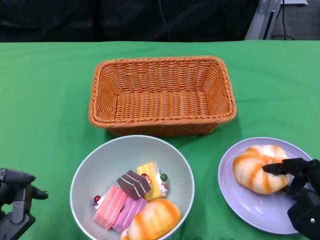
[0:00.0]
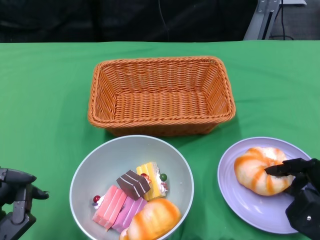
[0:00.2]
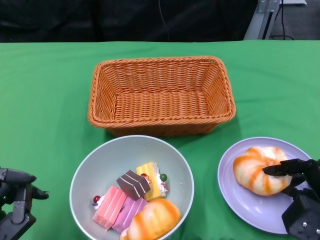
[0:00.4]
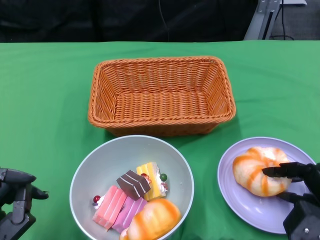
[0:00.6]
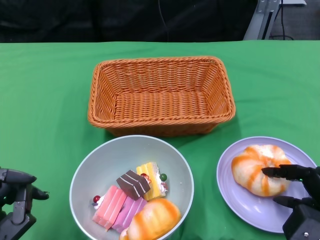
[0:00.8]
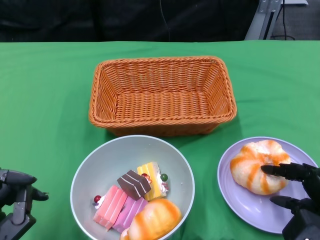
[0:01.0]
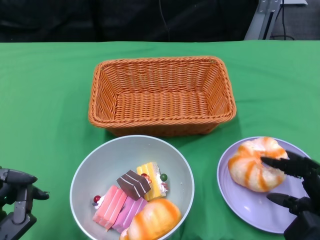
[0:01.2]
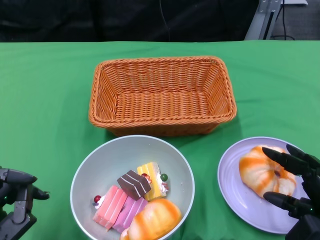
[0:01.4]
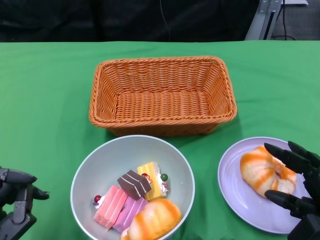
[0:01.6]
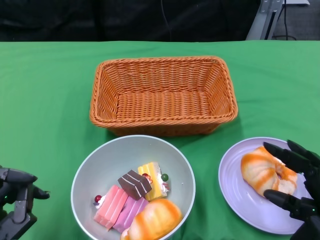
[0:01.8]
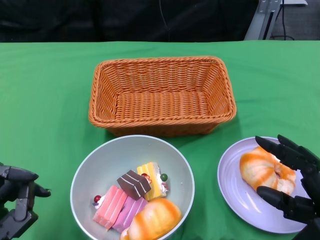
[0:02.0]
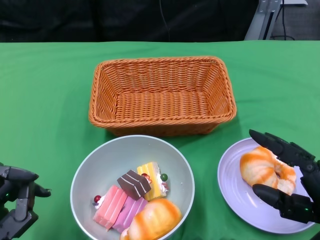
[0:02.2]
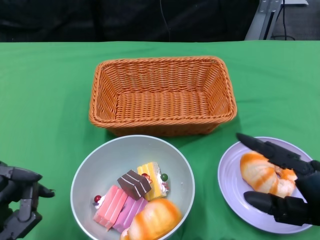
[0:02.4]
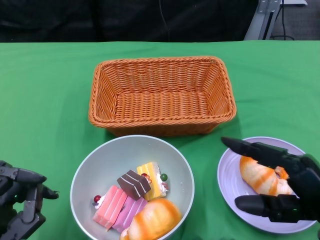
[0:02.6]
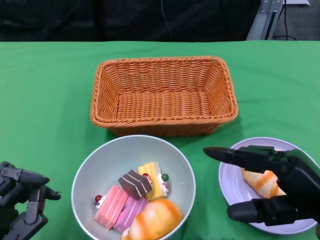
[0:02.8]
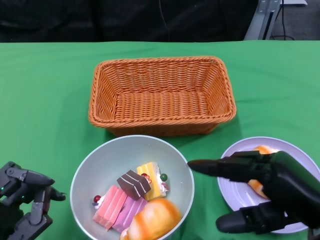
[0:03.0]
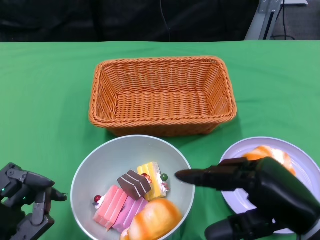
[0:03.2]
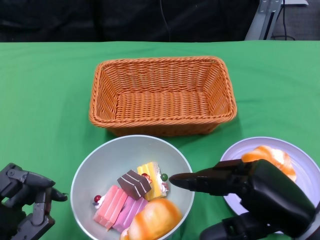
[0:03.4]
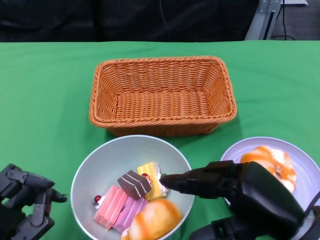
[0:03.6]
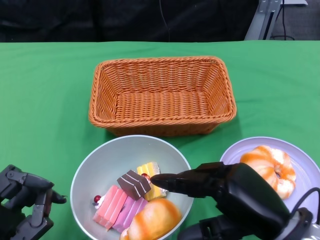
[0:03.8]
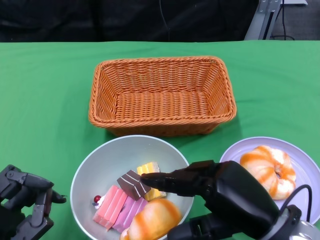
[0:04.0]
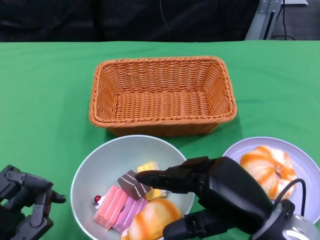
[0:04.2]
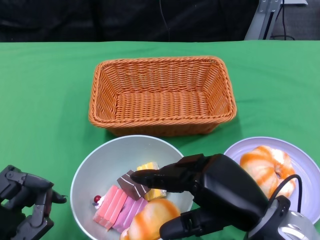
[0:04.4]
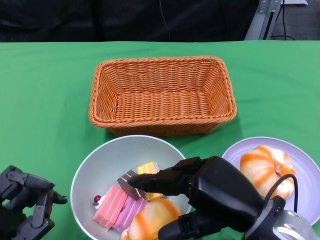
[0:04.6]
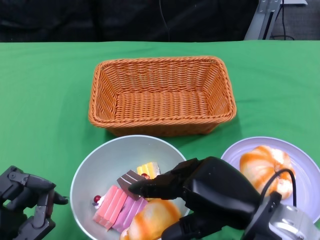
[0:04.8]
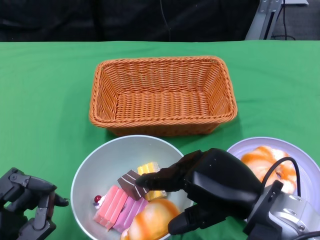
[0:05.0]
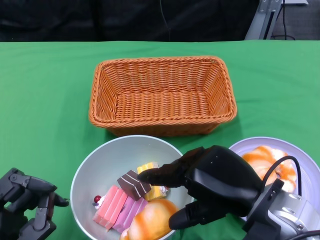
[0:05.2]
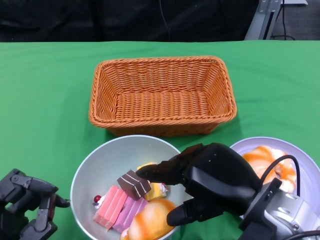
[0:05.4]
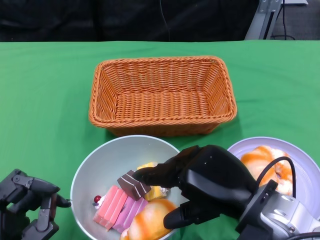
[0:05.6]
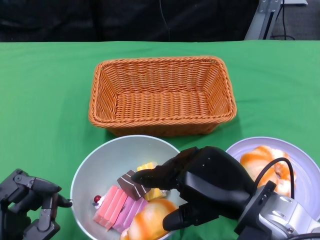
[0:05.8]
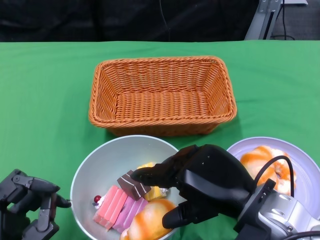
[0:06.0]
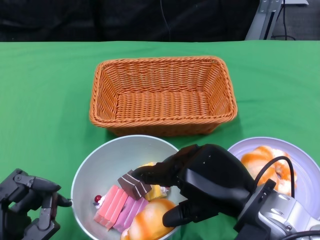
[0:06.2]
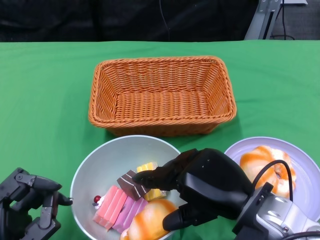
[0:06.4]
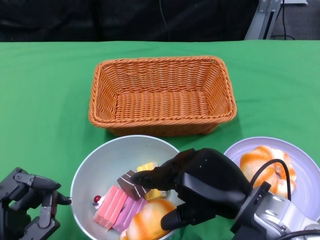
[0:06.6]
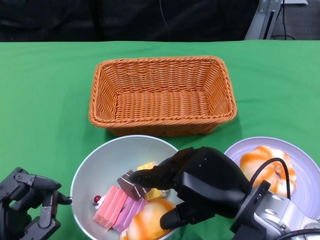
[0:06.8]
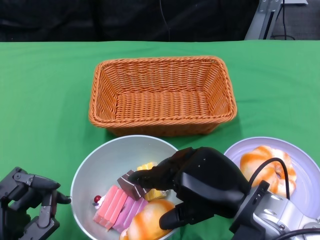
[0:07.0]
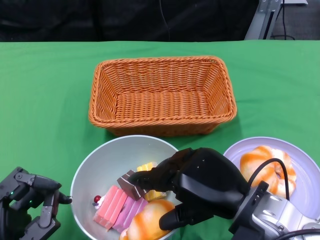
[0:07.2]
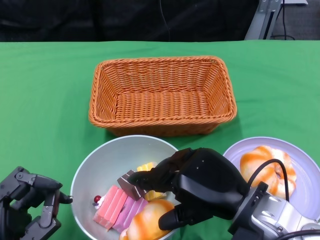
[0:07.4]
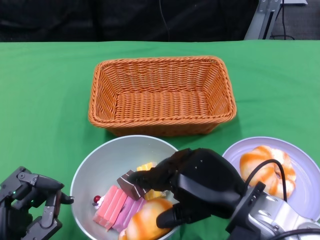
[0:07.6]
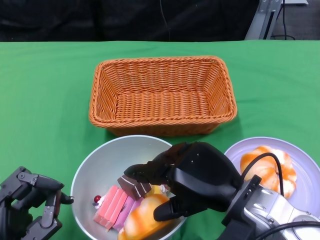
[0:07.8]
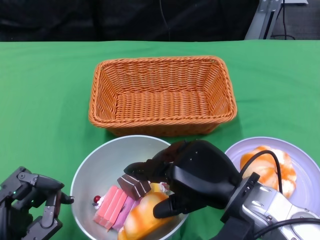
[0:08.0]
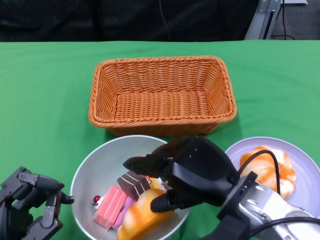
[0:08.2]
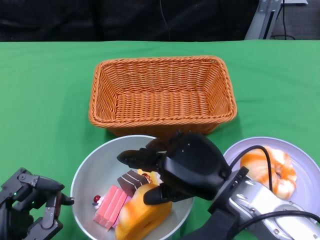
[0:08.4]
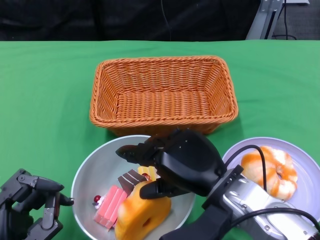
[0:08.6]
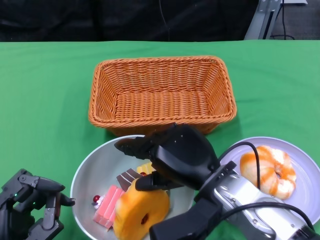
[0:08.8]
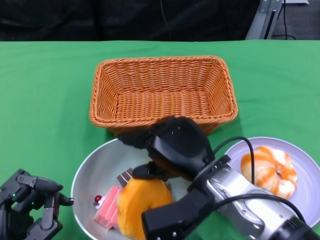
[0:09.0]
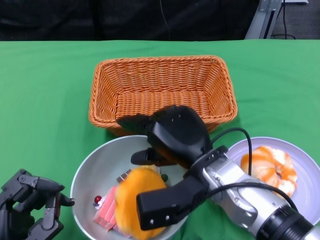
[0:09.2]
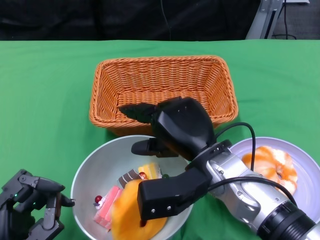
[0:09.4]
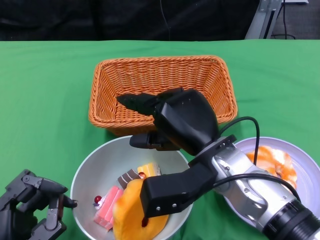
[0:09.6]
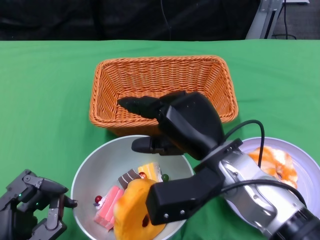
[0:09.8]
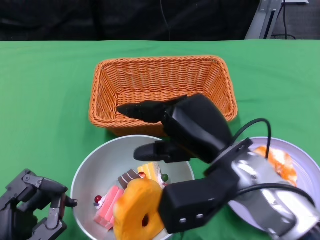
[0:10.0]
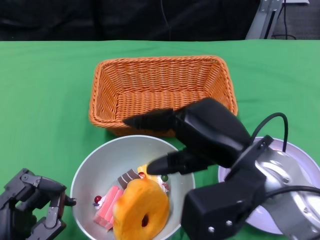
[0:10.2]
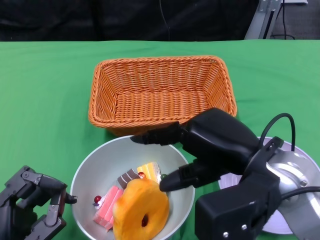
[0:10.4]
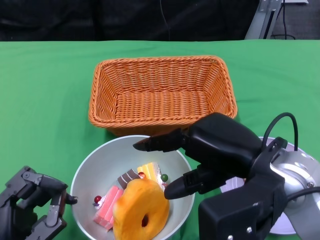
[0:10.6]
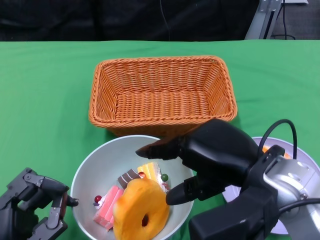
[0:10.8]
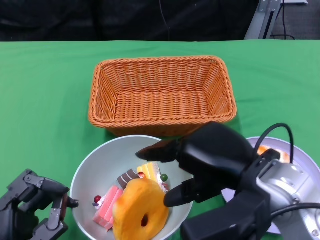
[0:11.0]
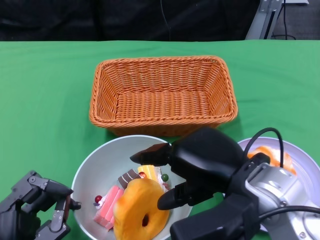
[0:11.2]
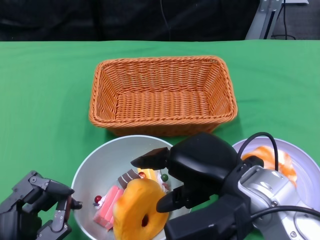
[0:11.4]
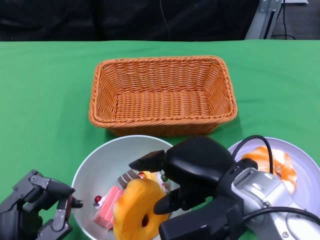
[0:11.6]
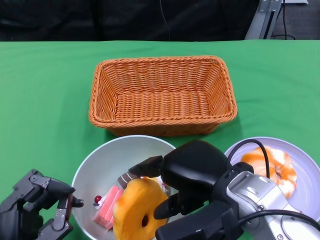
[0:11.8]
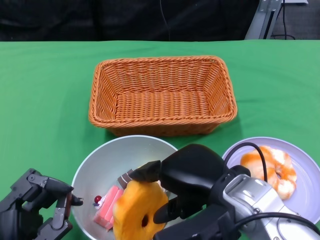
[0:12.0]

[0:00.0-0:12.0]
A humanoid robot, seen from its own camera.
0:00.0 to 0:01.6: There are only small adjustments of the hands.
0:01.6 to 0:03.0: The right hand moves upward, about 5 cm.
0:03.0 to 0:04.4: The right hand travels to the left by about 5 cm.
0:04.4 to 0:07.6: The hands stay close to where they were, moving slightly.
0:07.6 to 0:09.0: The right hand moves to the left, approximately 5 cm.
0:09.0 to 0:10.4: The right hand moves upward and to the right, about 10 cm.
0:10.4 to 0:12.0: The right hand changes place by some 5 cm.

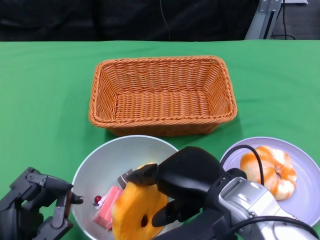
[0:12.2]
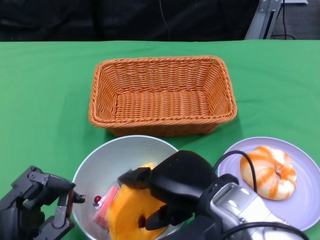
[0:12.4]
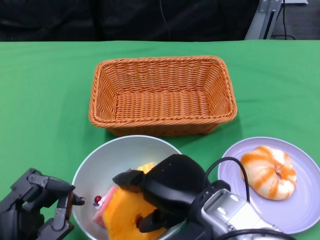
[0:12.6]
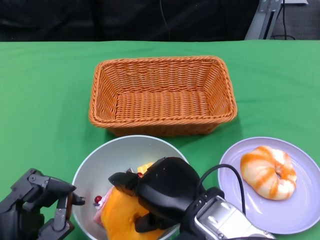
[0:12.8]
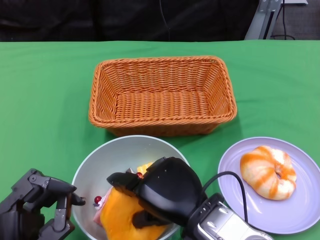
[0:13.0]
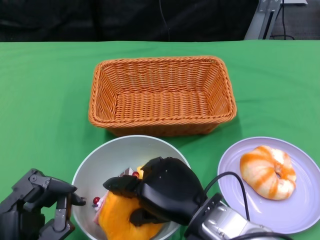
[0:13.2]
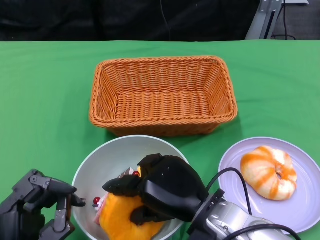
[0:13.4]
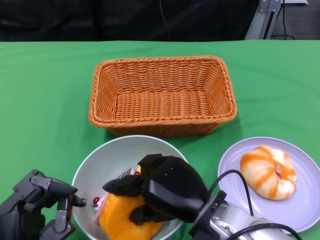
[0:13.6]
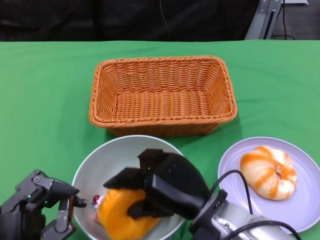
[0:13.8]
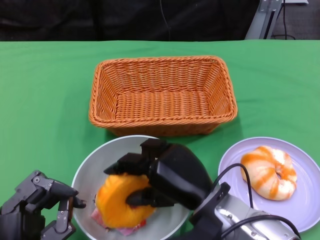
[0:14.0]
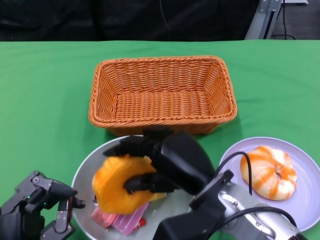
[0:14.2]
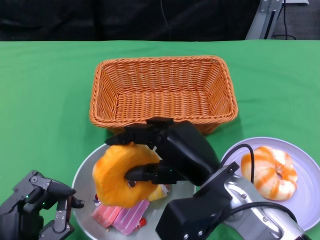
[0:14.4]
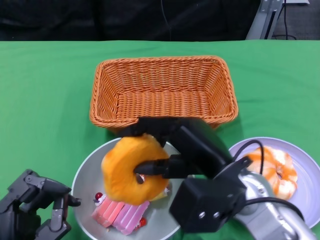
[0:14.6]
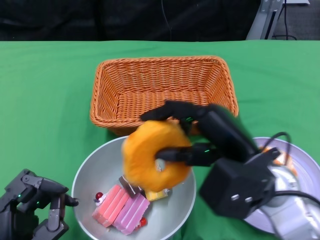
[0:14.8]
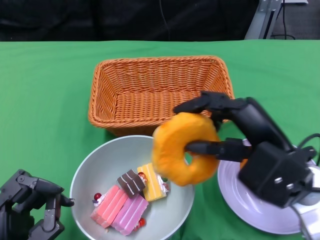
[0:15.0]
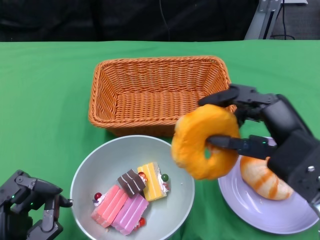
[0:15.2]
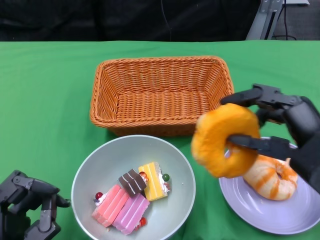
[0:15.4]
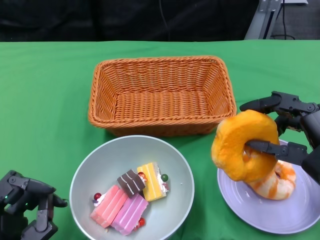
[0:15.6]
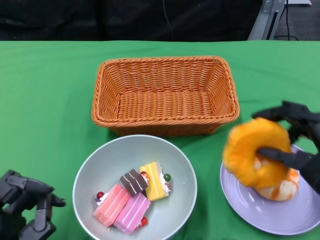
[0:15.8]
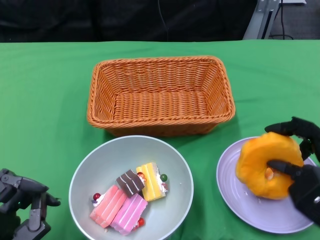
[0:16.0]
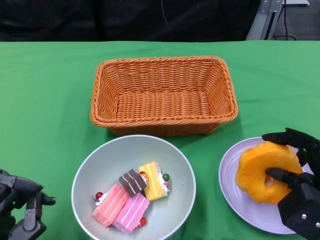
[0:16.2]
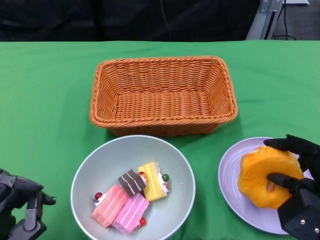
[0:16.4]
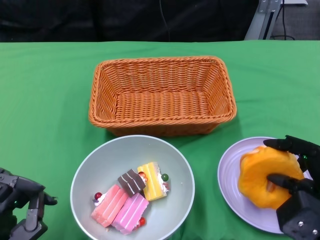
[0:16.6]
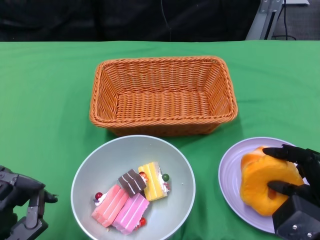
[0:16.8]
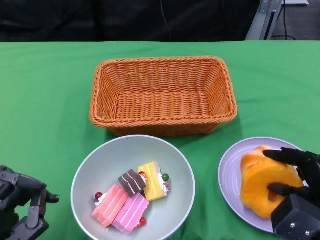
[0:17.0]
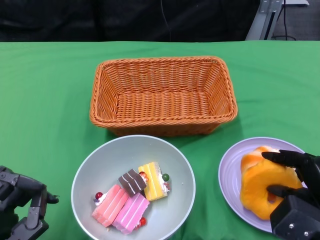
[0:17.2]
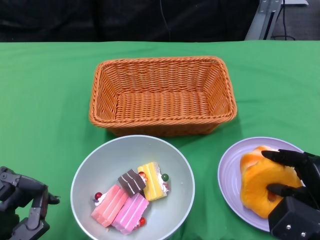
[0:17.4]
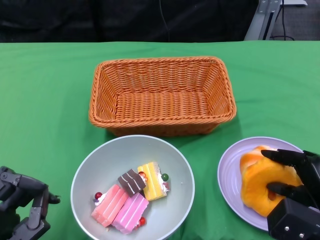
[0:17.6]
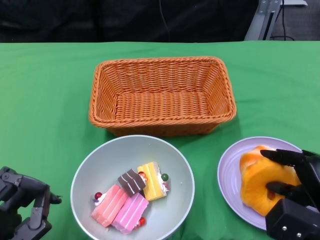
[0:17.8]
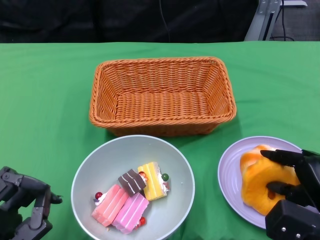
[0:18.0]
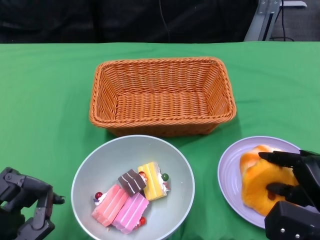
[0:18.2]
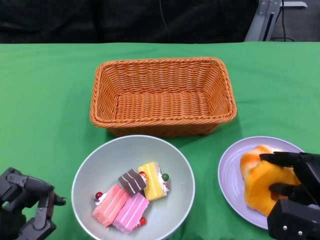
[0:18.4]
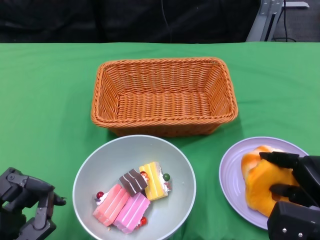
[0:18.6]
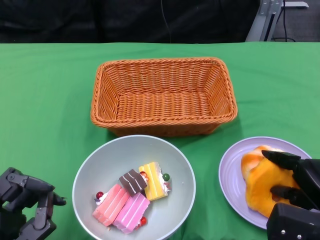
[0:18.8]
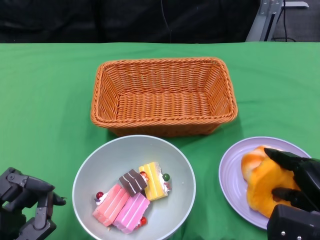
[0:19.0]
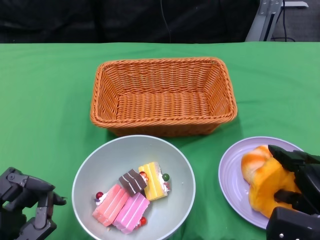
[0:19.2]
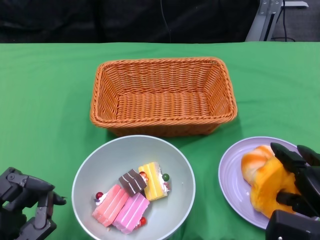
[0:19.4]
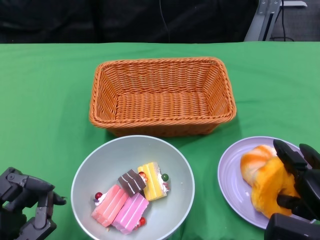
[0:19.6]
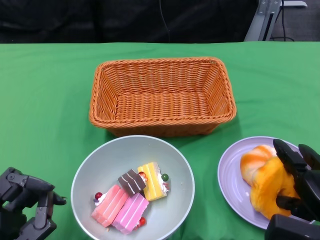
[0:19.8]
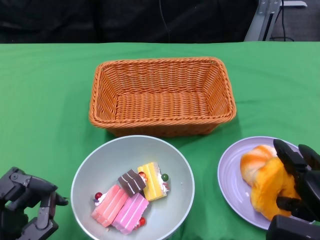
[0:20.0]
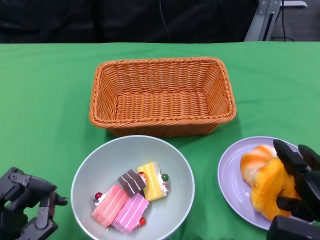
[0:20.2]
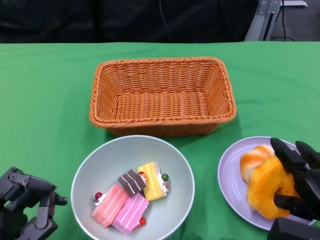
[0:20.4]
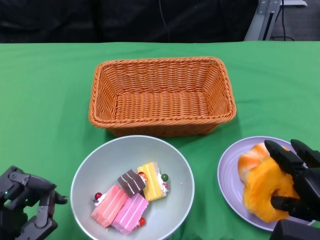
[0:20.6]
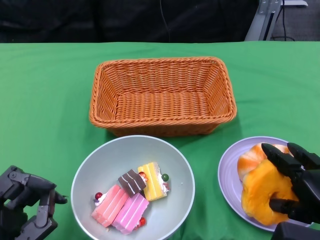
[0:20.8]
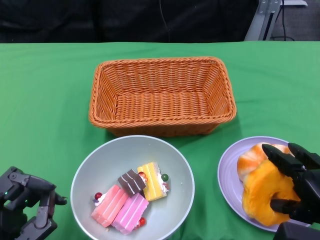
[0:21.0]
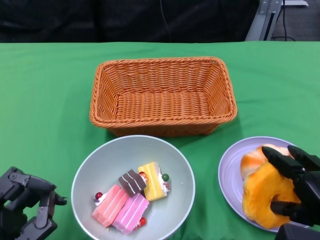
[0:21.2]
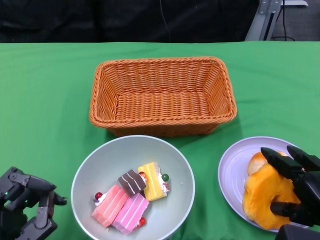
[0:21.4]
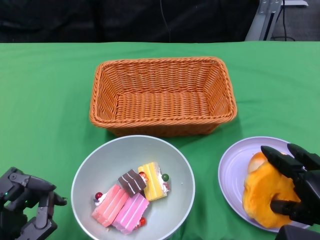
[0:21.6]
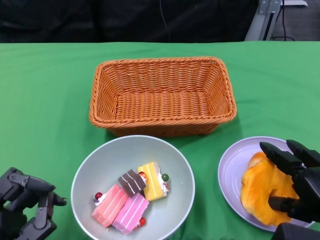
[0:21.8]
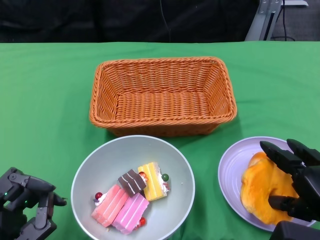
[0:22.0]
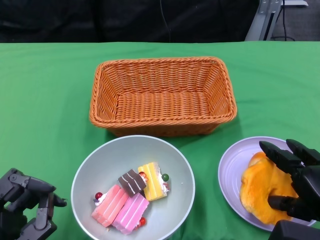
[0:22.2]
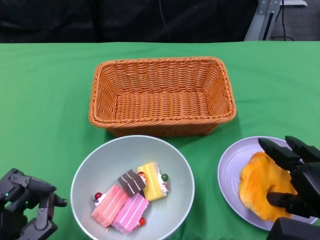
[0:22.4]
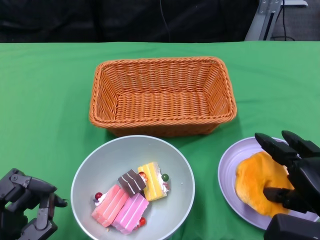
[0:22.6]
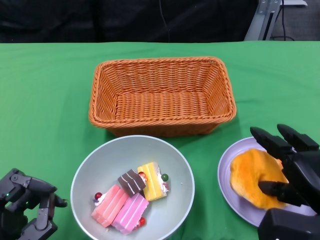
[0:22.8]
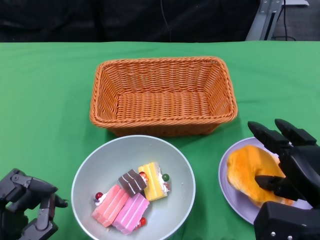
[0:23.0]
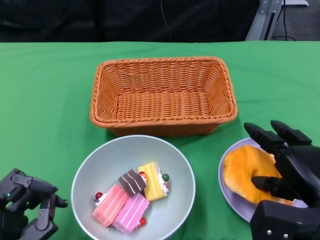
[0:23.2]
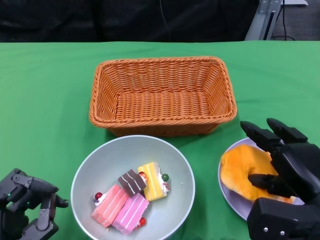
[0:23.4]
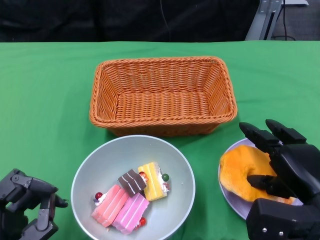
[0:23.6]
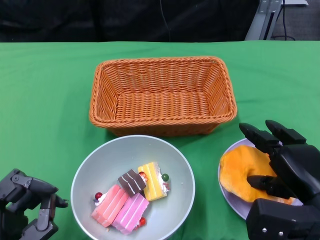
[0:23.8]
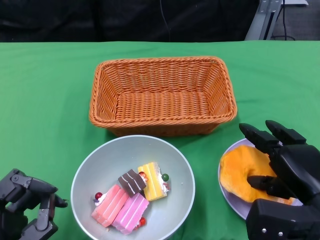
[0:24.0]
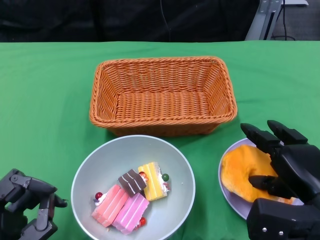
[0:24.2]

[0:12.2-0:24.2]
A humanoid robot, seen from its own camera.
0:12.2 to 0:13.8: The right hand is displaced downward by about 5 cm.
0:13.8 to 0:15.2: The right hand travels to the right and upward by about 15 cm.
0:15.2 to 0:16.6: The right hand moves downward and to the right, roughly 10 cm.
0:16.6 to 0:18.2: The hands stay close to where they were, moving slightly.
0:18.2 to 0:24.2: The hands make only small movements.
